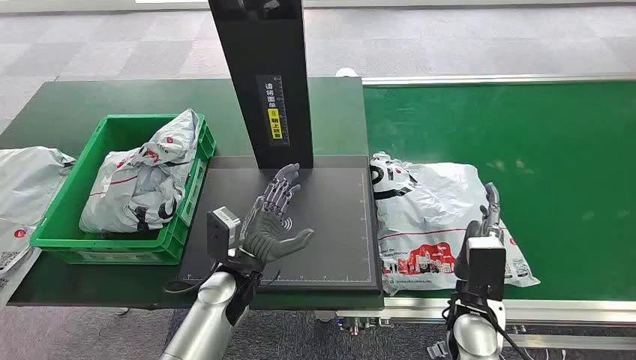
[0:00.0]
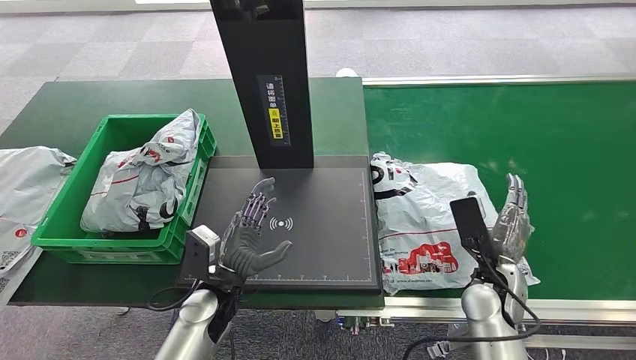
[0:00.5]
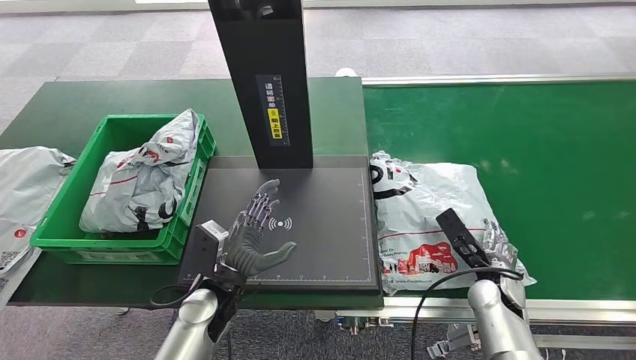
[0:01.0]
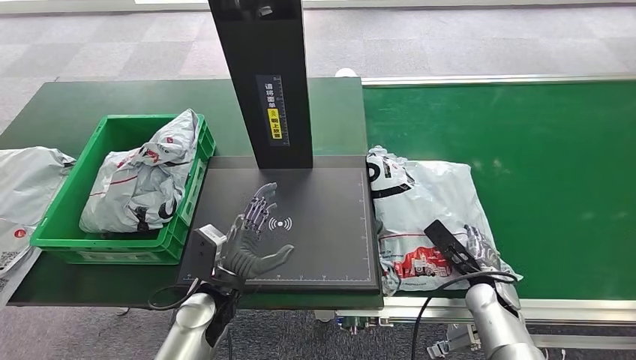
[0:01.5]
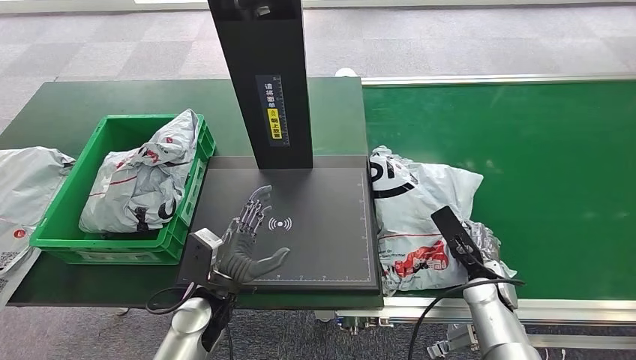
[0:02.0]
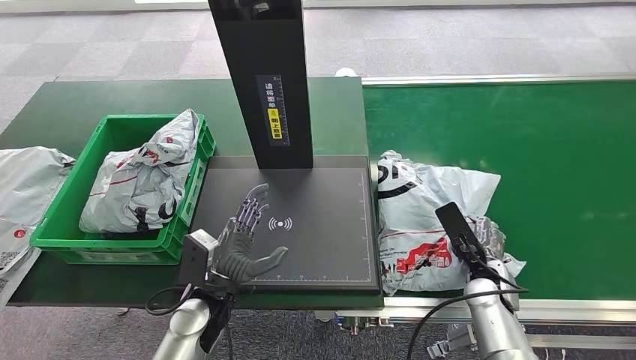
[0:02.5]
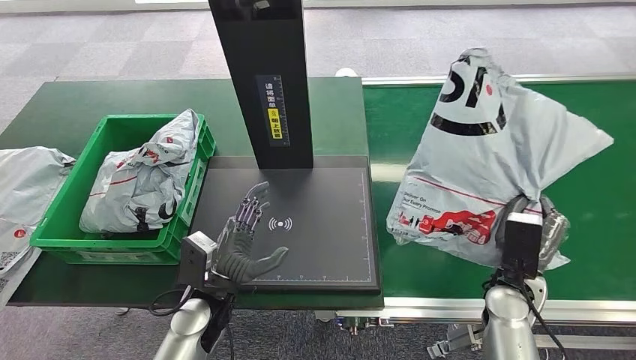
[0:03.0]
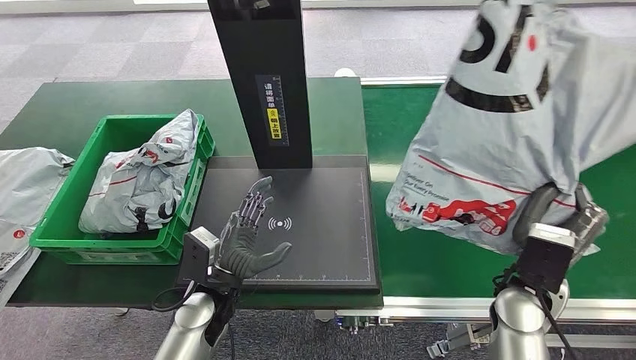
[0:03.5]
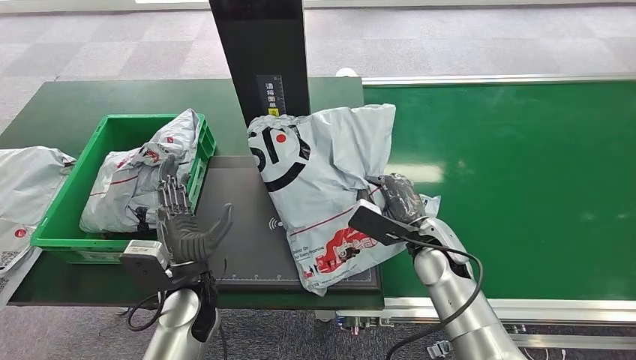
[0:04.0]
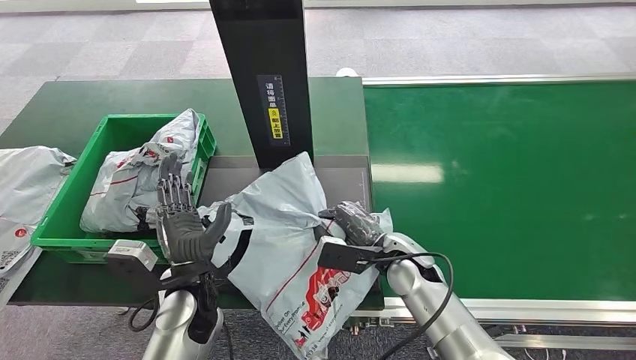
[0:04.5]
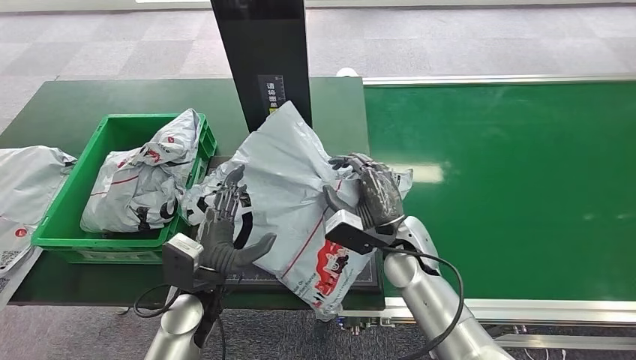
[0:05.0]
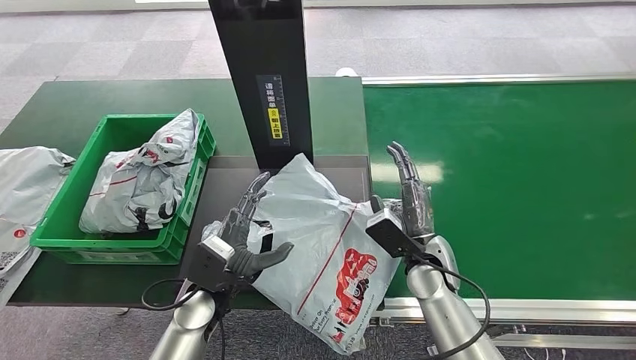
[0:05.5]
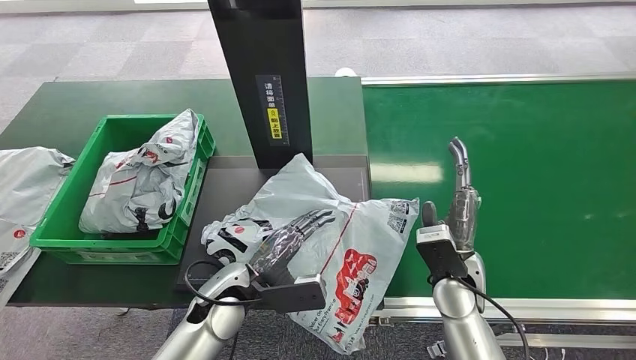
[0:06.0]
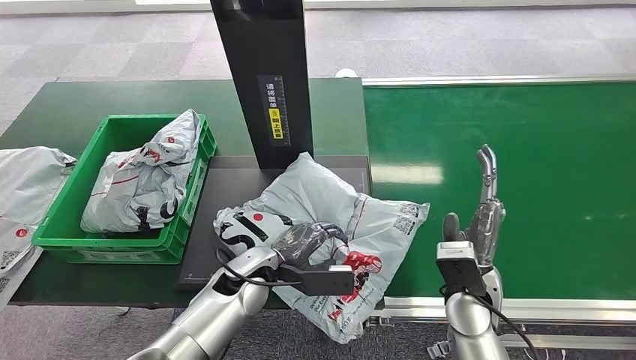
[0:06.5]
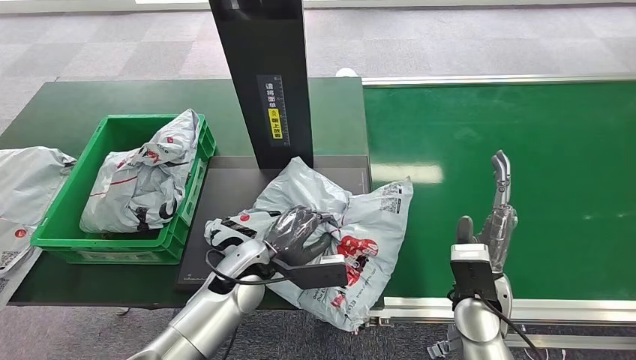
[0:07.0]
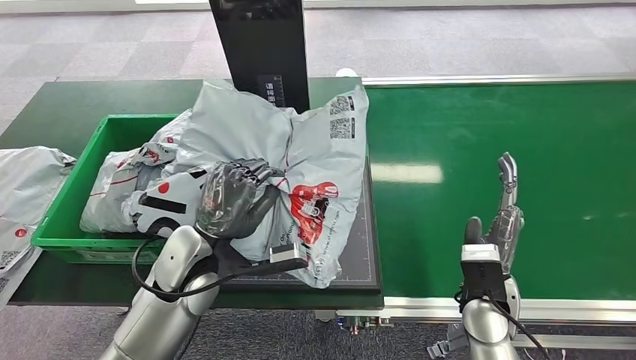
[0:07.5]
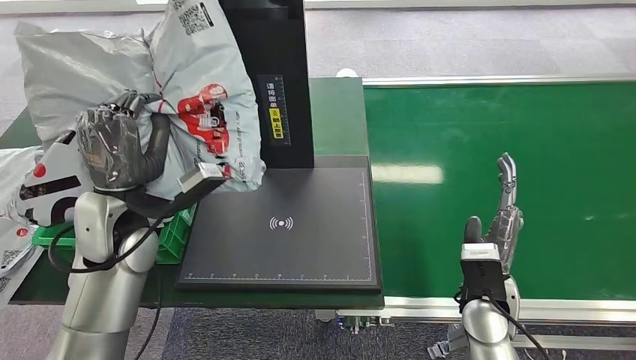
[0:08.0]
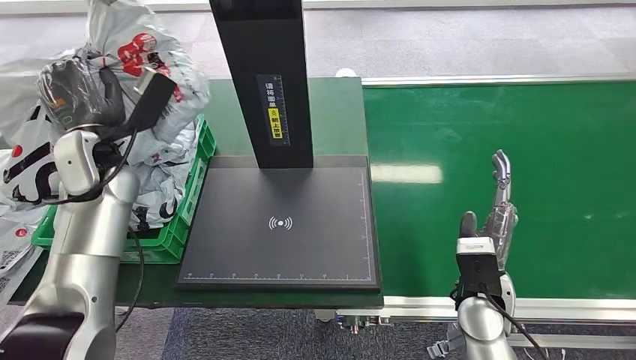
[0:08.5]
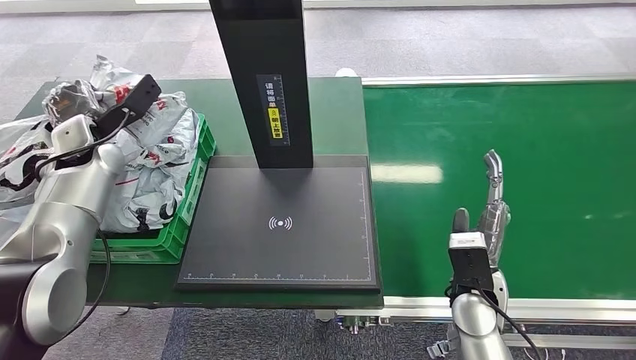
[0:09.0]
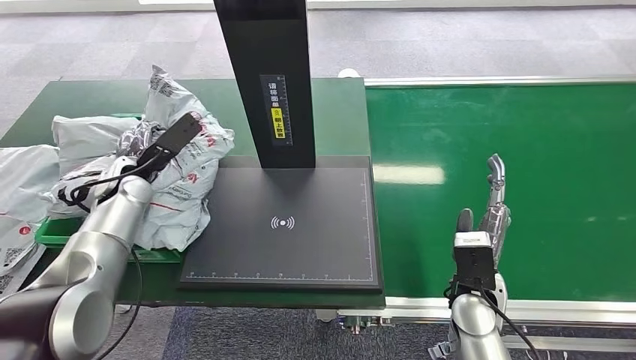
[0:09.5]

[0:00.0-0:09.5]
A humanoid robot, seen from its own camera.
Step, 0:00.0 to 0:03.0: Pick up the package from the conveyor belt.
Step, 0:03.5 to 0:05.0: Place the package onto the inbound machine.
Step, 0:05.5 to 0:08.0: Pick up the package from the inbound machine.

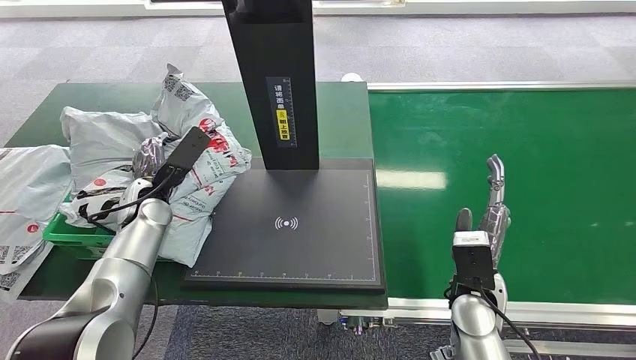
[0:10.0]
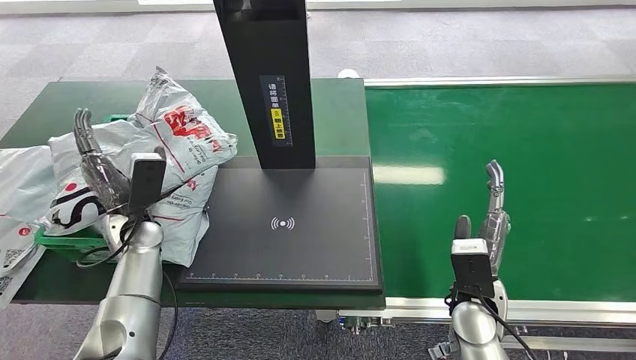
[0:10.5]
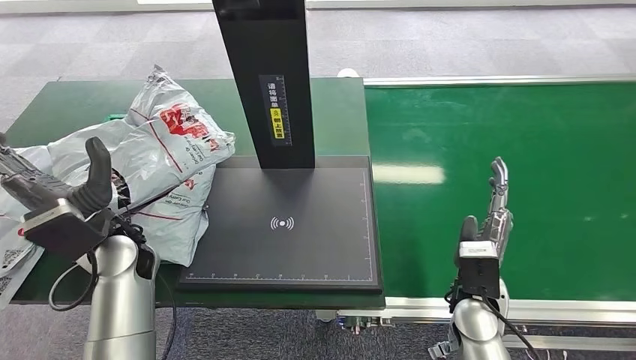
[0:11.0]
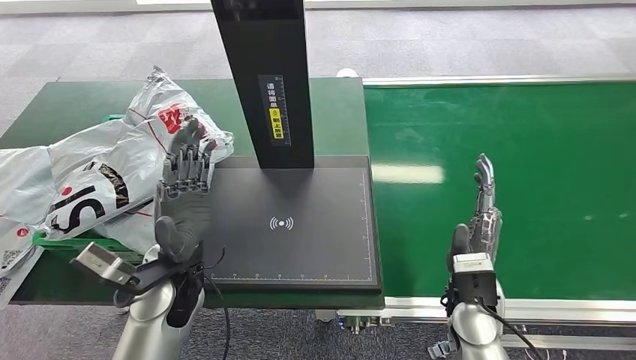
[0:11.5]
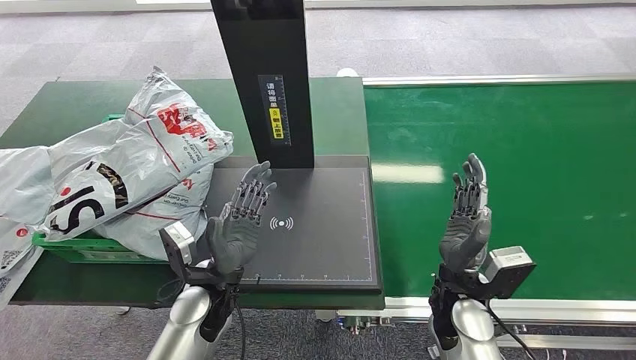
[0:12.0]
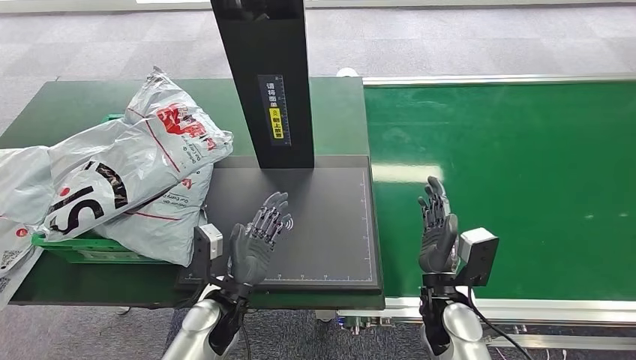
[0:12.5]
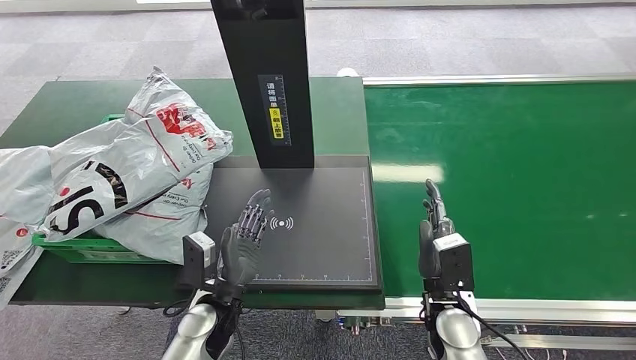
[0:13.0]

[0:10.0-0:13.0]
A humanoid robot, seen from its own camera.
Step, 0:10.0 to 0:13.0: Place the package into the parcel locker.
0:11.5 to 0:13.0: The left hand heads downward, covering some 10 cm.
